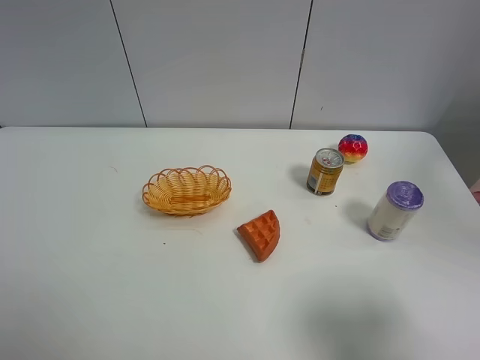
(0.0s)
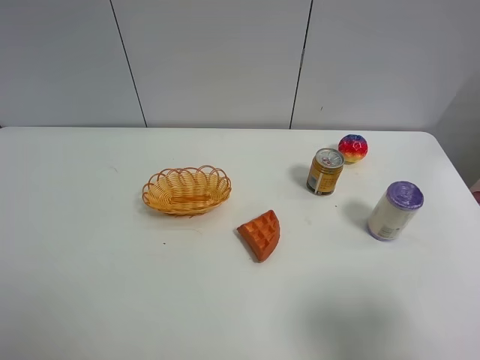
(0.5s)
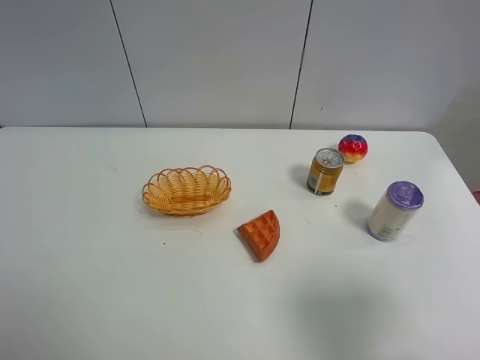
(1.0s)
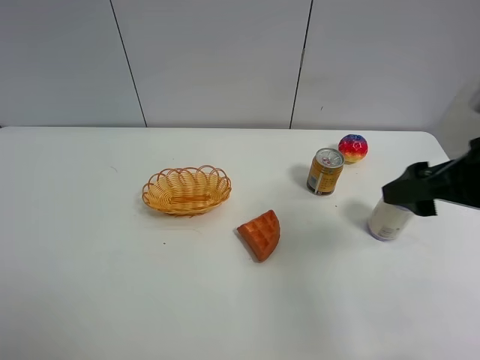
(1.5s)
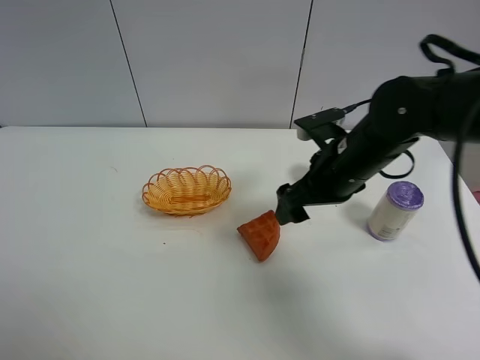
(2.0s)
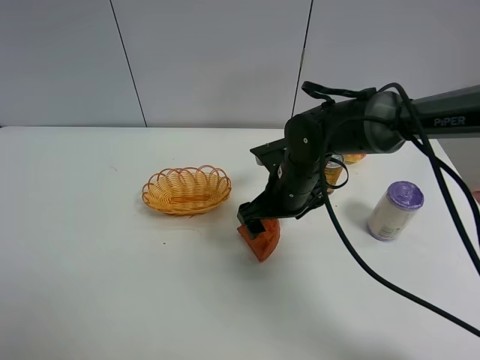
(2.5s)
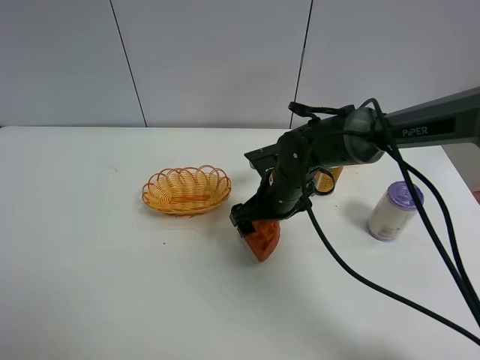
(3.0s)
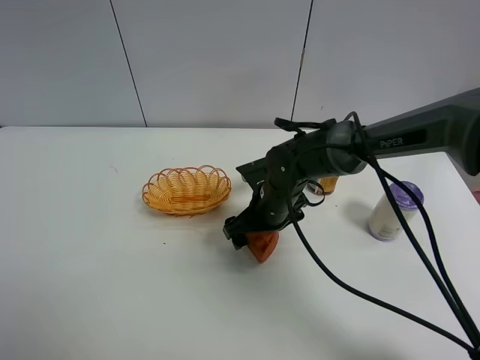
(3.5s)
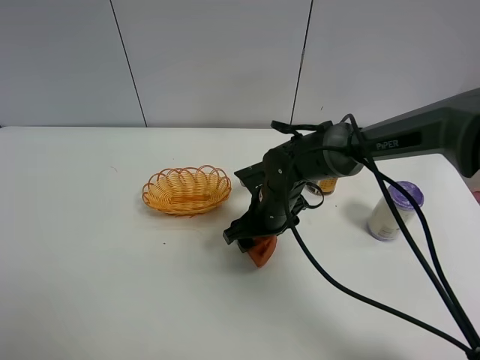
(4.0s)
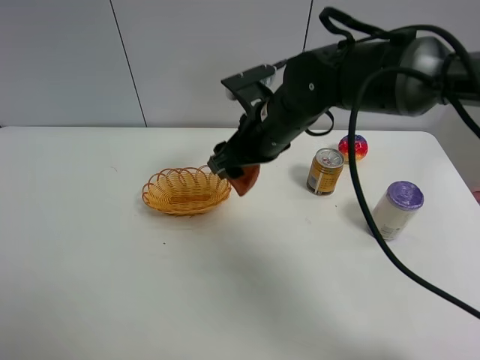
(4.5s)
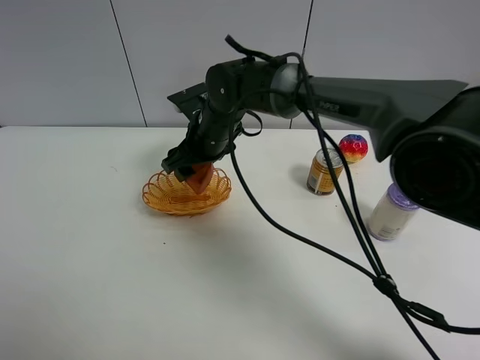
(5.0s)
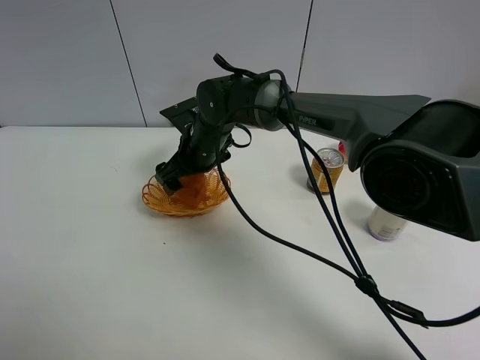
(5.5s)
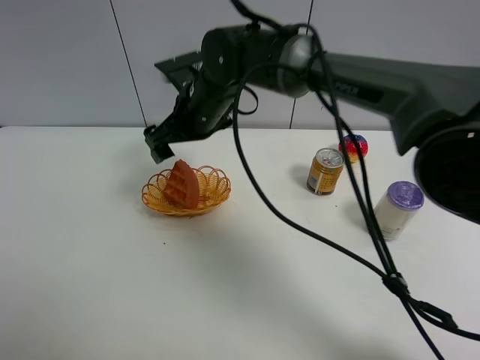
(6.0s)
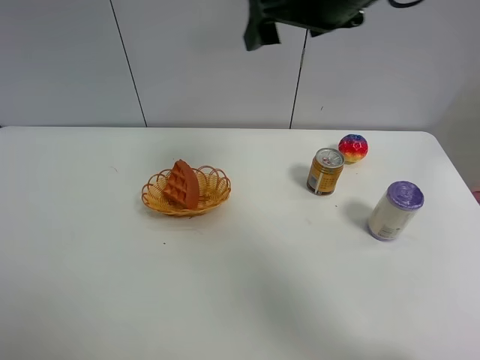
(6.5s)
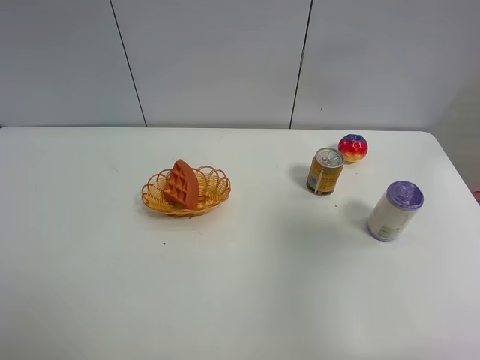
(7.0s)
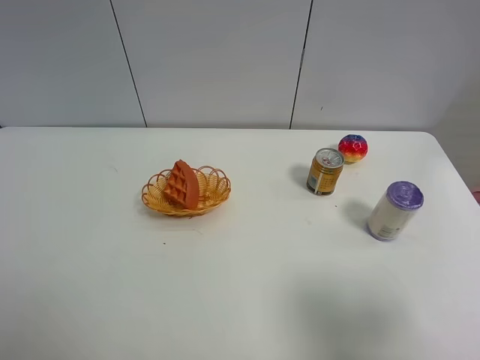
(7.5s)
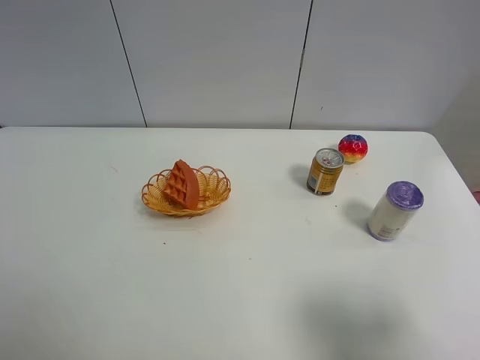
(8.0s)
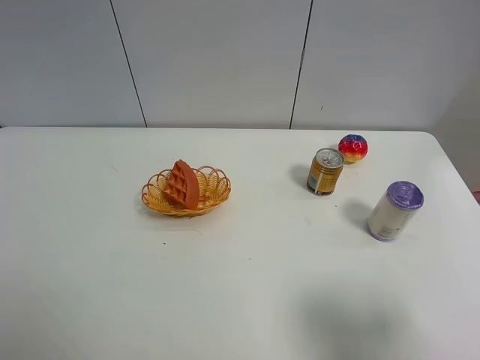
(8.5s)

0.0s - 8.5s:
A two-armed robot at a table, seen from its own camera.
Task of the whole recording: Put the bakery in the basket.
Step, 0.0s - 3.5s: Grasp the bread with right gripper.
Step, 4.0s - 6.0s: Place the bread in the basket with right gripper.
0.0s - 2.0s: The right gripper heads forward and to the left, covering roughly 30 cm.
2.0s - 4.0s: The right gripper heads downward and to the left, covering about 15 cm, and closes its fingers.
4.0s - 6.5s: The right gripper moves up and down over approximately 30 cm, changing direction 2 times, and opens its fingers.
6.5s - 8.5s: The right gripper travels backward, to the right and downward by some 35 cm.

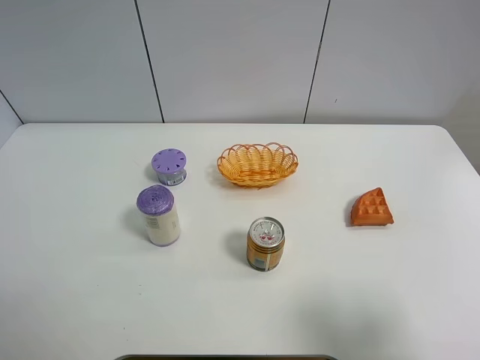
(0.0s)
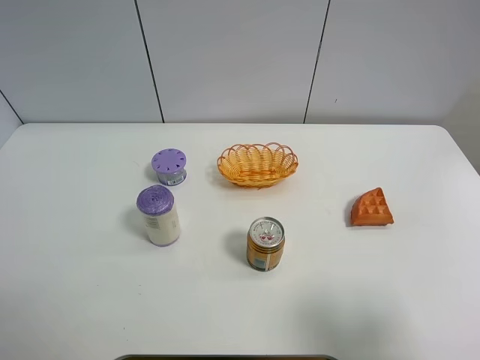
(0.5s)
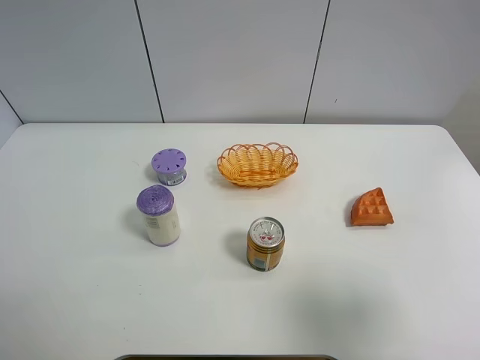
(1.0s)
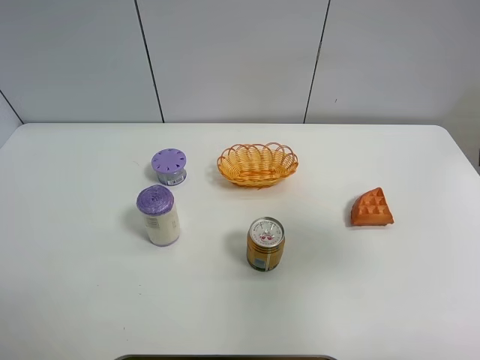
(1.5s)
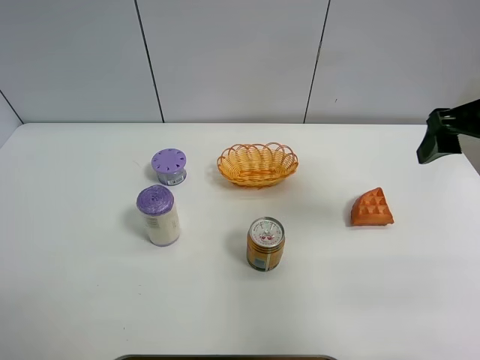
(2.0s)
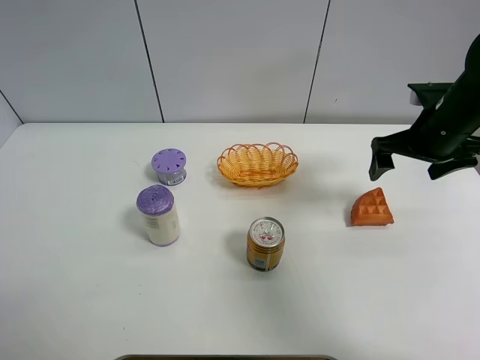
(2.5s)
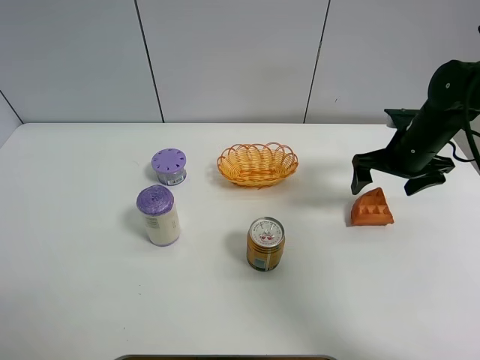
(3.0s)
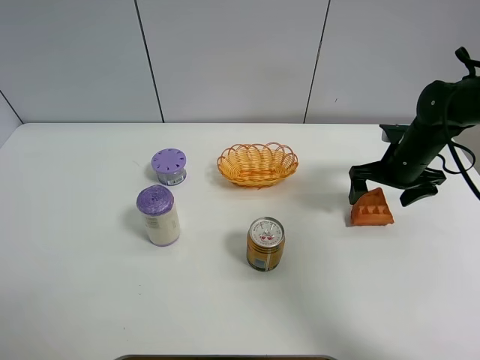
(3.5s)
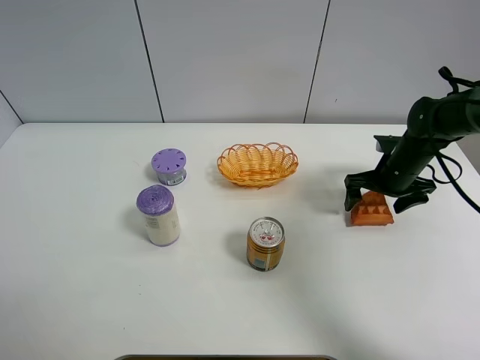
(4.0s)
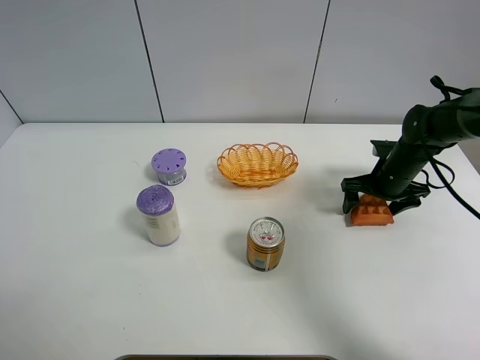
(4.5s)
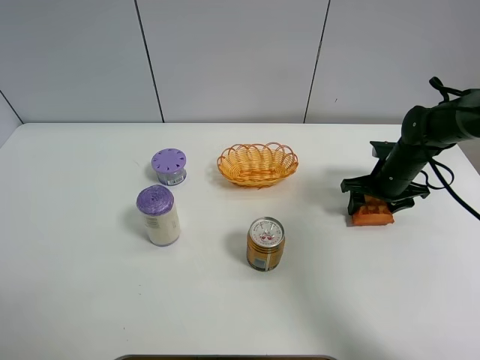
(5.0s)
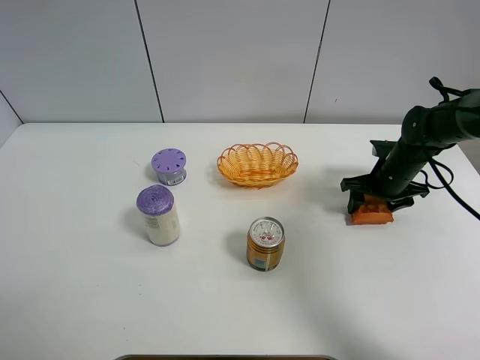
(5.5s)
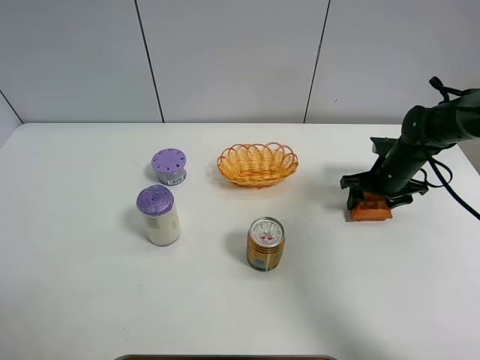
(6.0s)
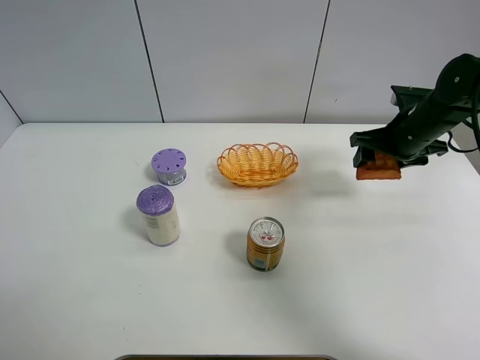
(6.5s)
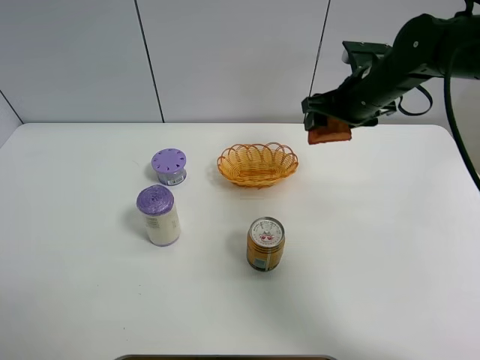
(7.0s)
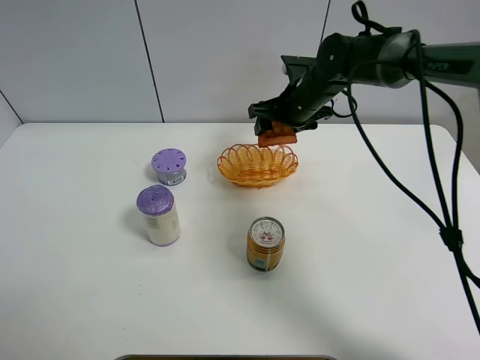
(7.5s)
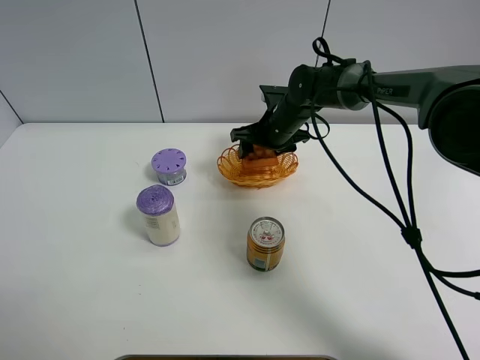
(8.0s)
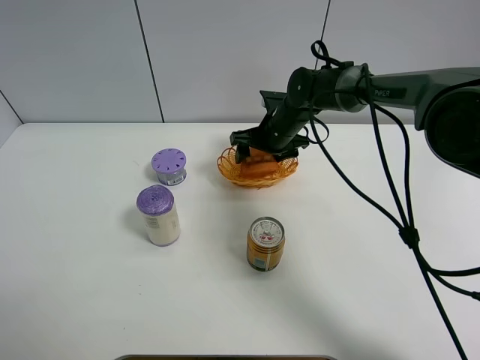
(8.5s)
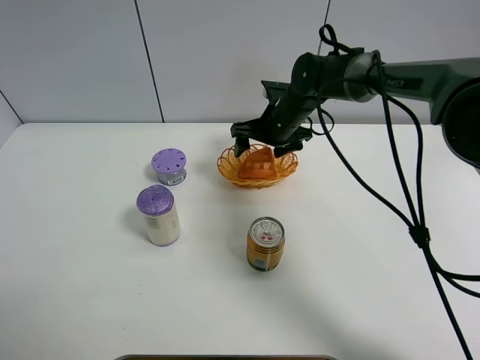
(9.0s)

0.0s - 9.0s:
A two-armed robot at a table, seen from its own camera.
Task of the whole recording: Put the bakery in the basket.
Step, 0.0s - 5.0s: Grasp the bread with right gripper.
0.0s - 2.0s: The right gripper shifts some 25 cm forward.
2.0s - 4.5s: The right gripper goes about 25 cm downward and forward.
4.5s - 7.0s: The right gripper shifts roughly 15 cm upward and to the left, and closes.
7.0s - 9.0s: The right gripper travels to the left and downward by approximately 10 cm, and opens its fingers.

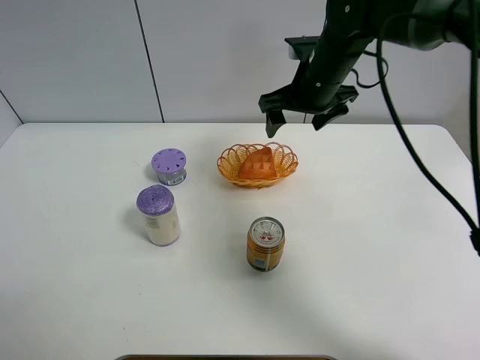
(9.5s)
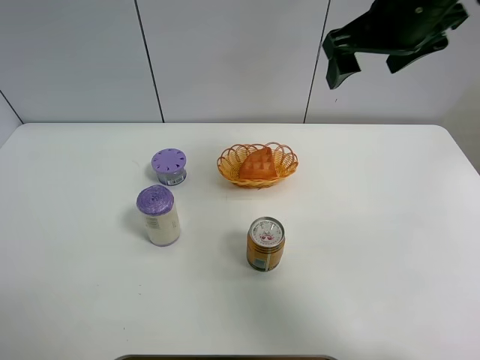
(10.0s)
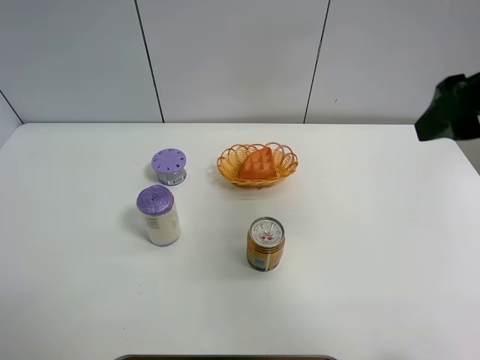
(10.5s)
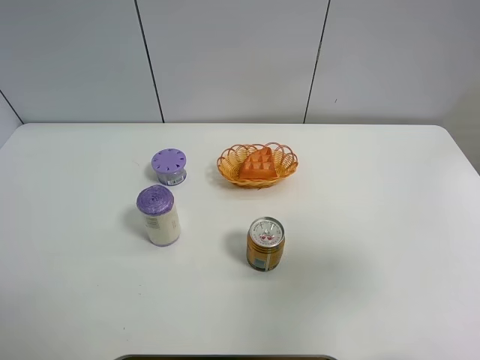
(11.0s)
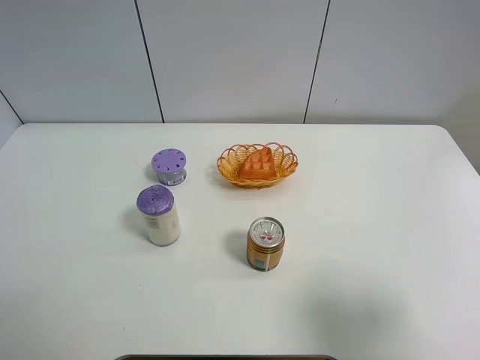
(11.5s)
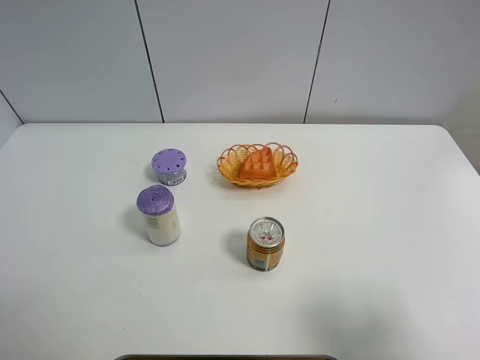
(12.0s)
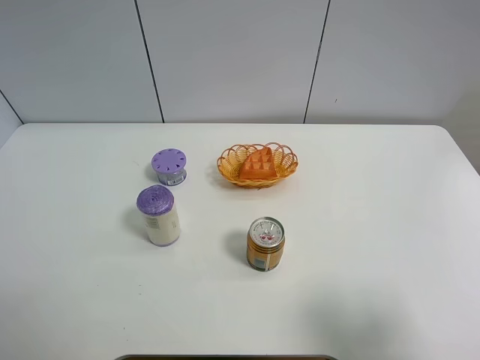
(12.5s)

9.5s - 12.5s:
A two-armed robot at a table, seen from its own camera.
Task of the whole recording: Put the bakery in the basket.
9.5s - 11.0s: The right gripper is displaced backward and to the right by some 35 cm.
11.0s - 12.5s: The right gripper is displaced backward and downward by approximately 10 cm.
